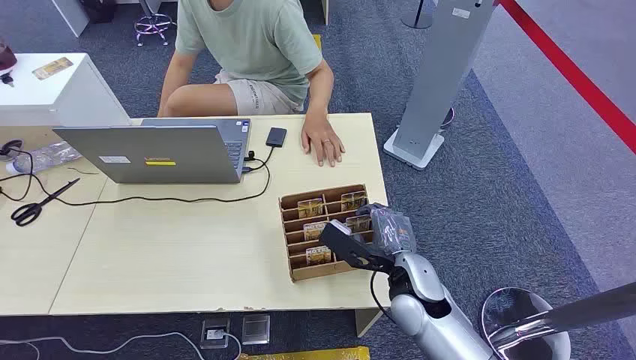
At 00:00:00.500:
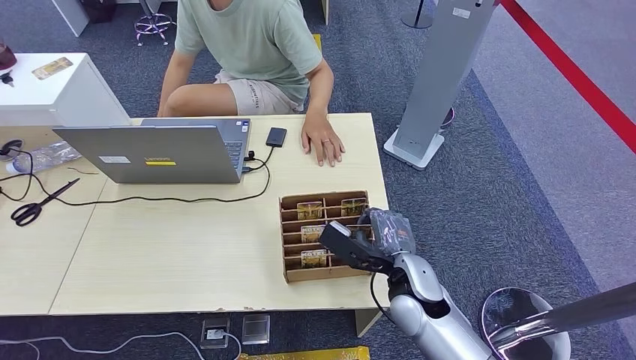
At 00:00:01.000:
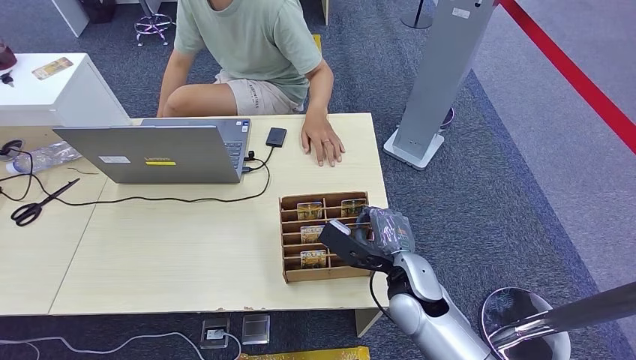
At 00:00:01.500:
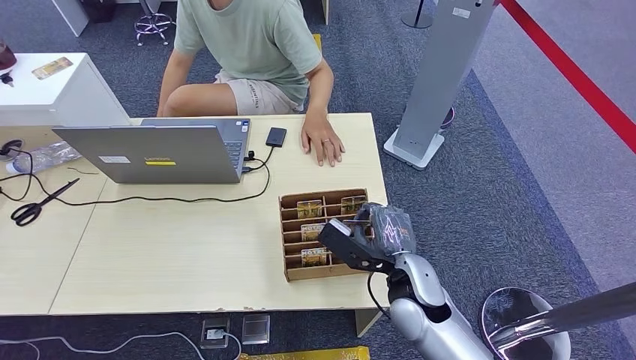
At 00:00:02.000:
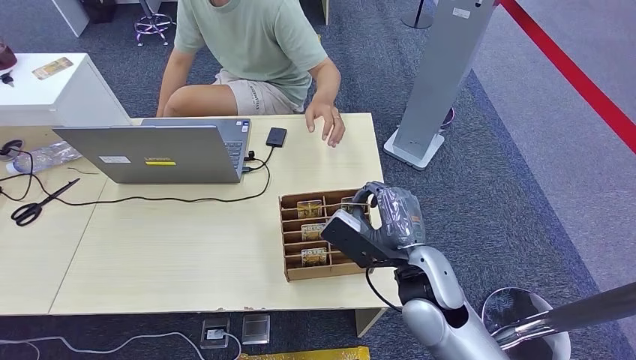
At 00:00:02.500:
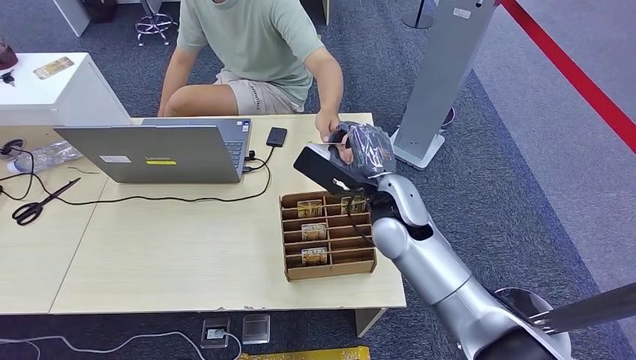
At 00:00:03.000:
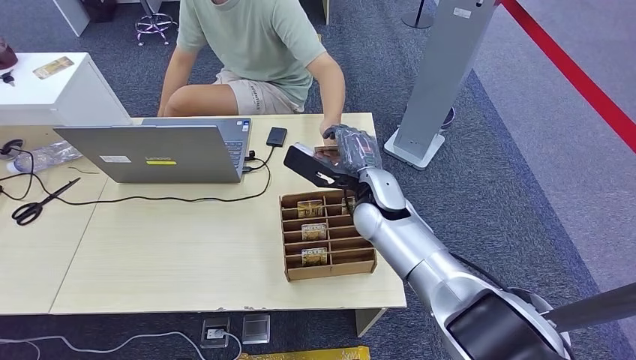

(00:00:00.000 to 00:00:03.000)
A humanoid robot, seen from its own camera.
Step, 00:00:00.000 - 00:00:01.500: Pick up the key card from the card box.
00:00:01.500 - 00:00:03.000: The right hand travels forward and upward by about 15 cm.
